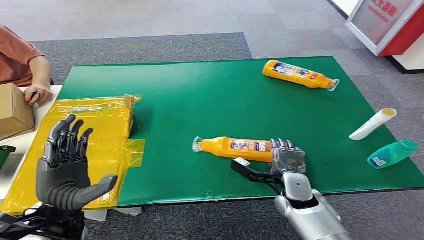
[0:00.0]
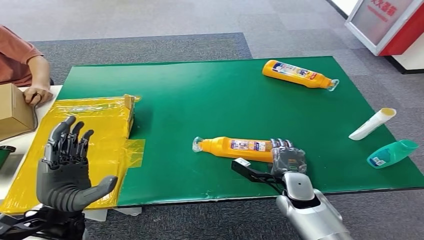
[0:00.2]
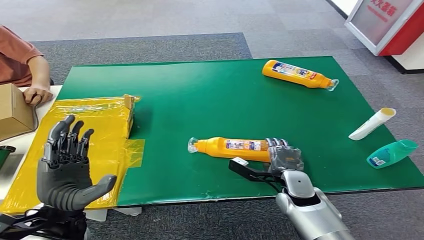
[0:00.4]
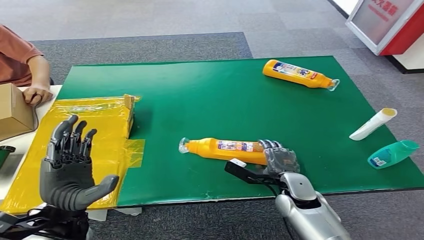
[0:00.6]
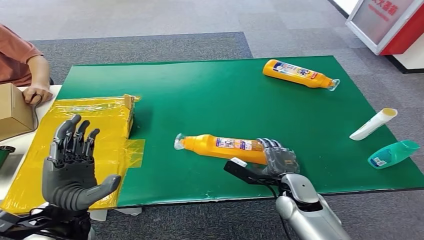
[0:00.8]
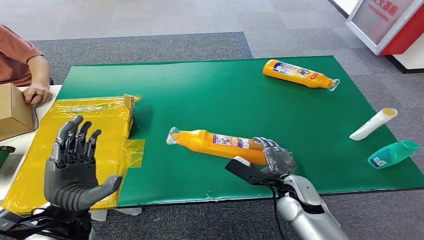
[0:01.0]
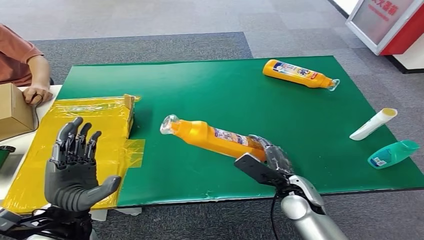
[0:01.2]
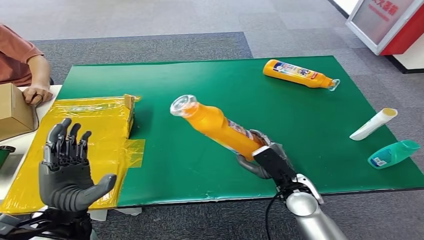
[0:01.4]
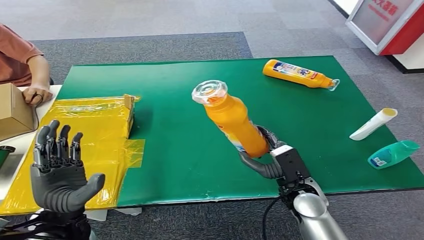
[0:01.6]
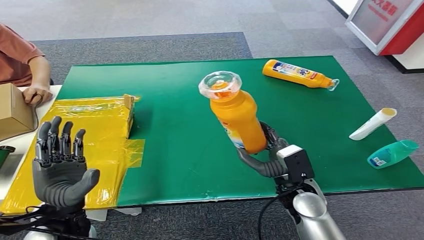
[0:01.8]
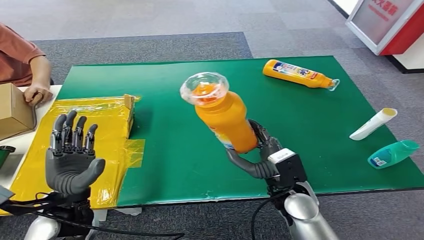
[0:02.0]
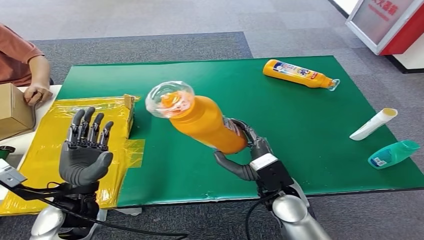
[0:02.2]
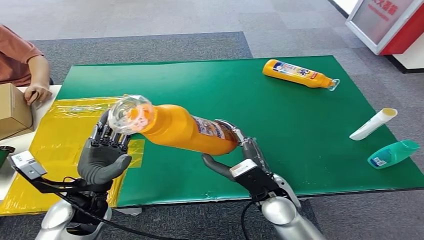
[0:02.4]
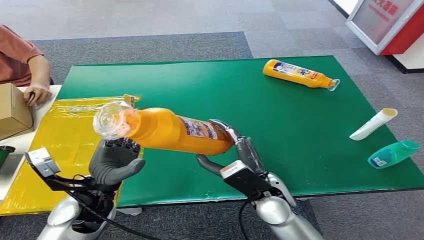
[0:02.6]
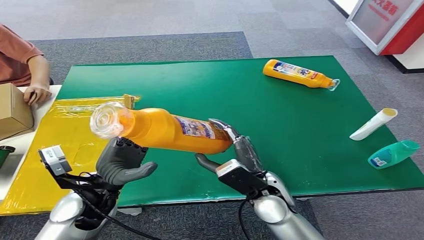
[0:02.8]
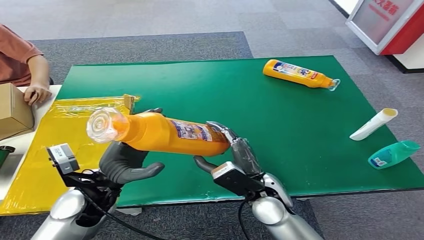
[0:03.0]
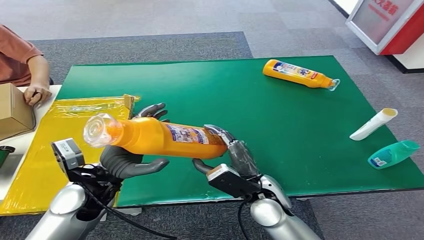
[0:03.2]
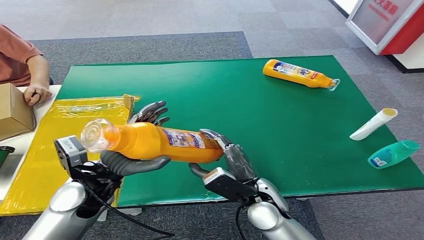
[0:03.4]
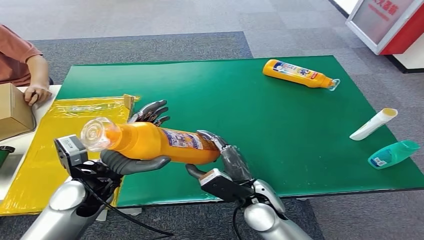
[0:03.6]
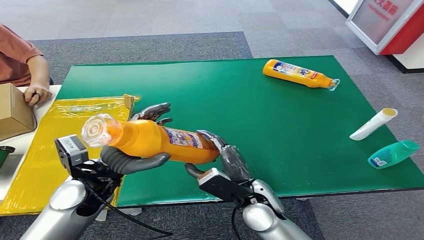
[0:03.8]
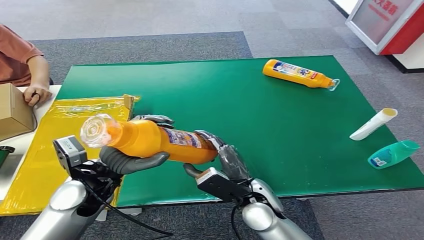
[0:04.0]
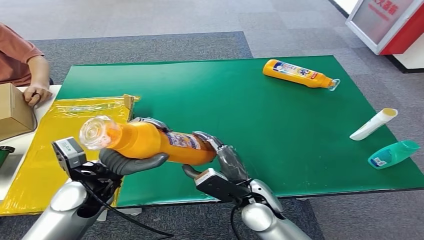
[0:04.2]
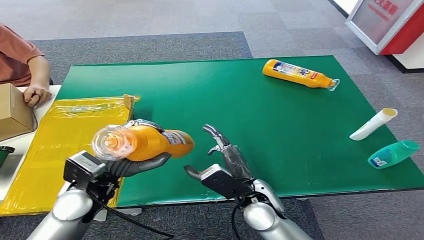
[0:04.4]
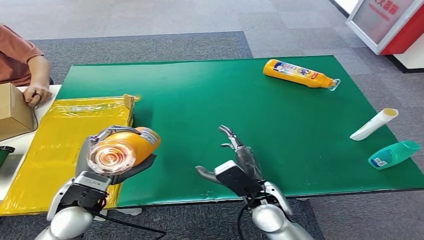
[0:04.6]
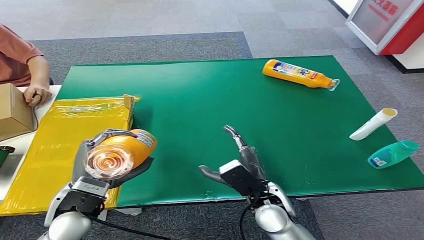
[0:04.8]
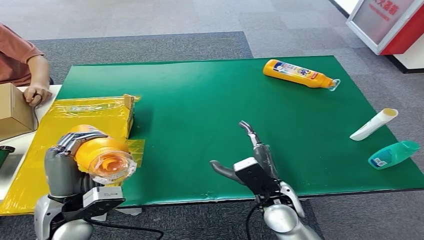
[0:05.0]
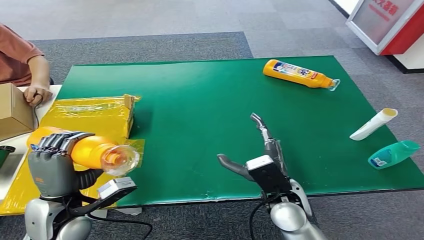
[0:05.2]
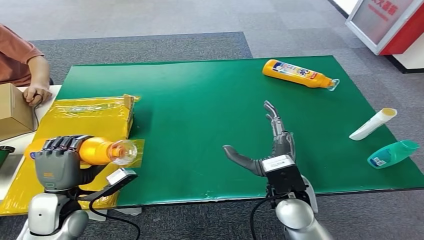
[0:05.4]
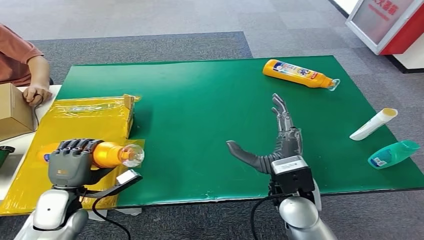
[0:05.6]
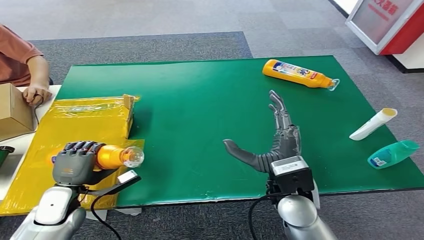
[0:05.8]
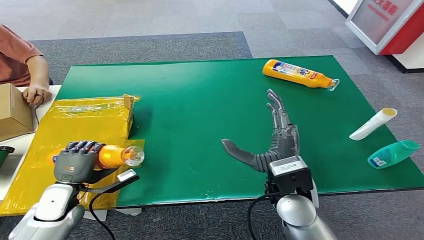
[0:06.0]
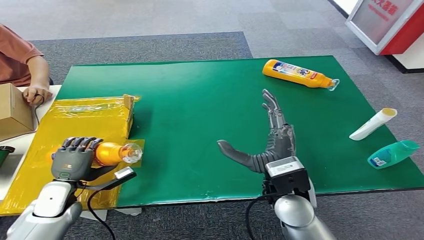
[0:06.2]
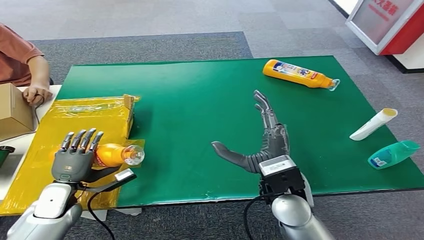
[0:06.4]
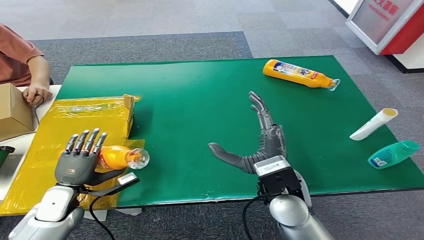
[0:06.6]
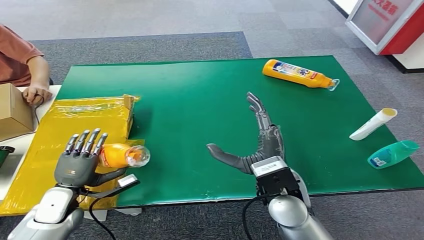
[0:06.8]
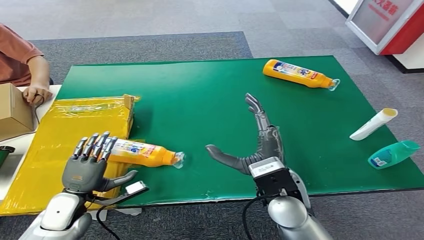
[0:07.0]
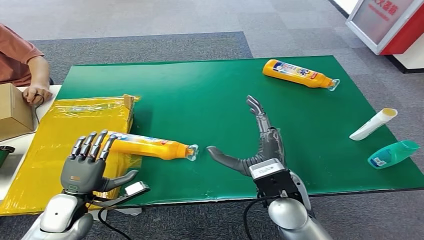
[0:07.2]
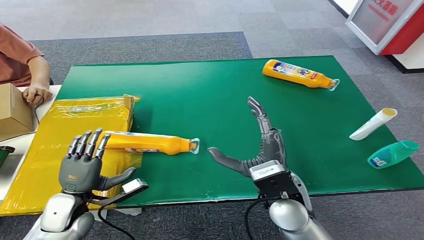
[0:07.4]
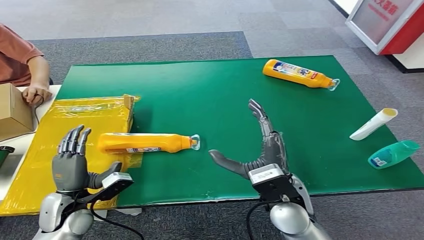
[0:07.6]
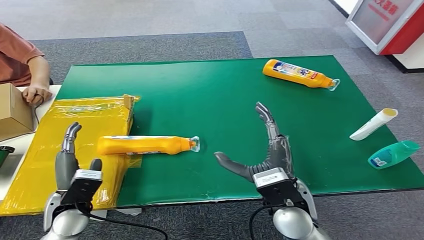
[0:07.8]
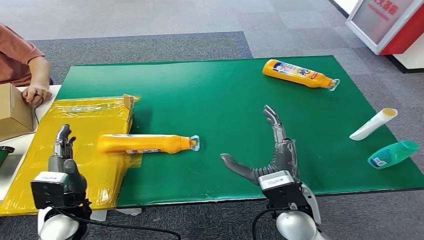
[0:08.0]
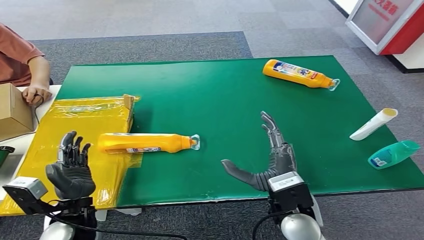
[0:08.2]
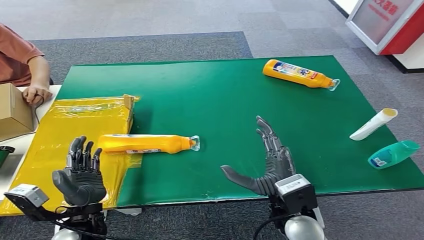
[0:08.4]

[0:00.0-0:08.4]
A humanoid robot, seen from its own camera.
Step, 0:02.0 to 0:08.4: Turn the bottle to the front side.
0:02.8 to 0:04.2: There are only small adjustments of the hands.
0:04.2 to 0:05.6: The left hand shifts some 15 cm to the left and downward; the right hand is displaced upward and to the right by some 10 cm.
0:05.6 to 0:07.0: There are only small adjustments of the hands.
0:07.0 to 0:08.4: The left hand travels to the right, backward and upward by roughly 10 cm. Meanwhile the right hand changes place by approximately 5 cm.

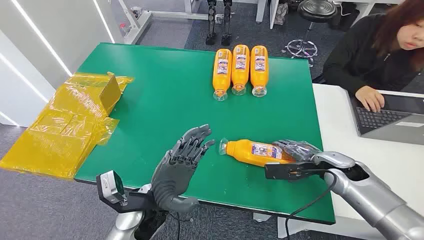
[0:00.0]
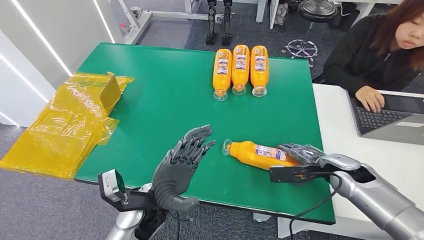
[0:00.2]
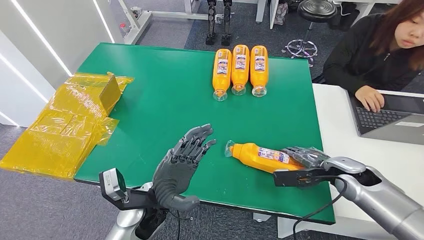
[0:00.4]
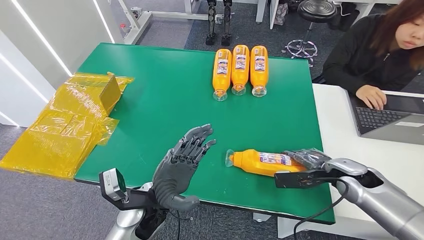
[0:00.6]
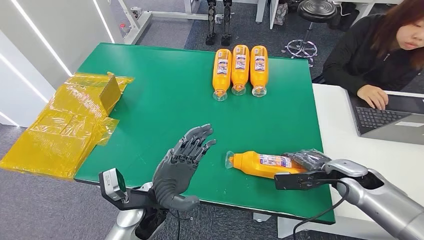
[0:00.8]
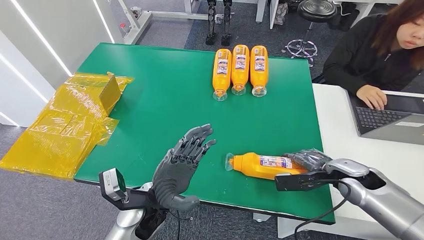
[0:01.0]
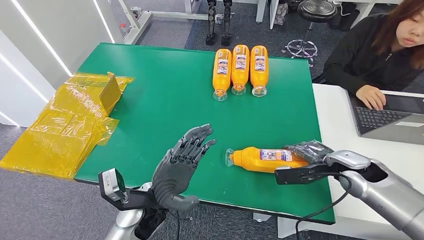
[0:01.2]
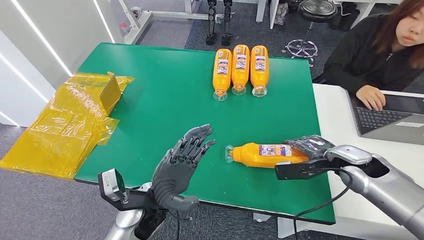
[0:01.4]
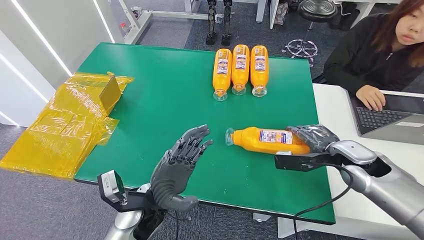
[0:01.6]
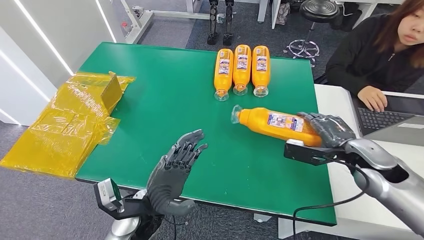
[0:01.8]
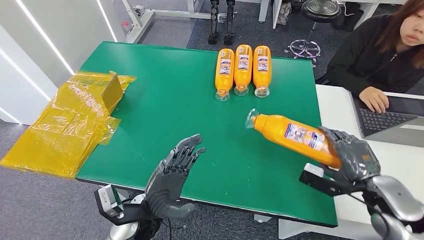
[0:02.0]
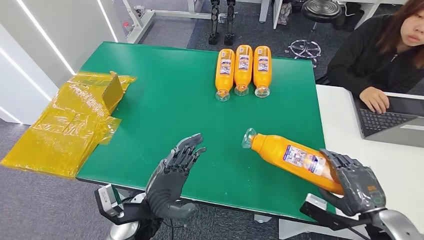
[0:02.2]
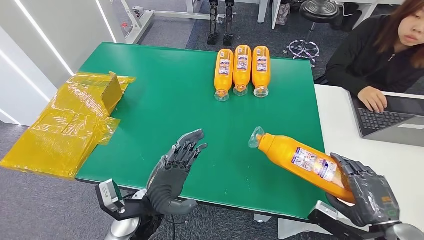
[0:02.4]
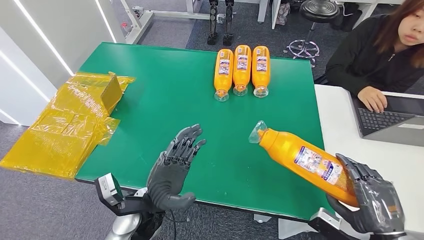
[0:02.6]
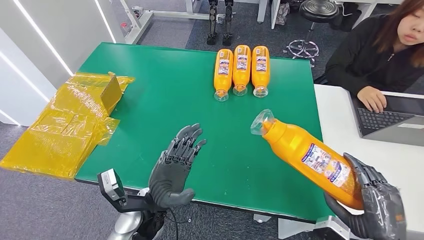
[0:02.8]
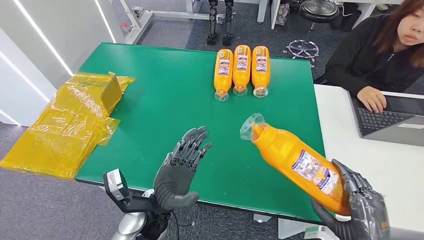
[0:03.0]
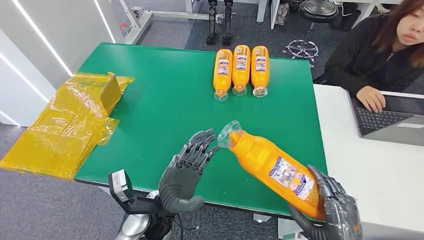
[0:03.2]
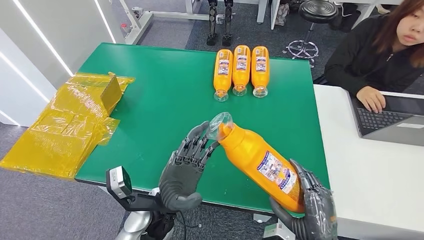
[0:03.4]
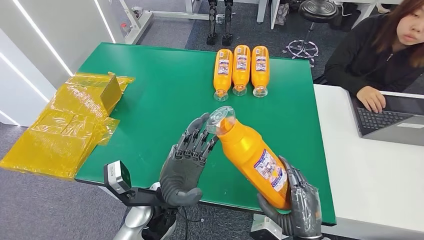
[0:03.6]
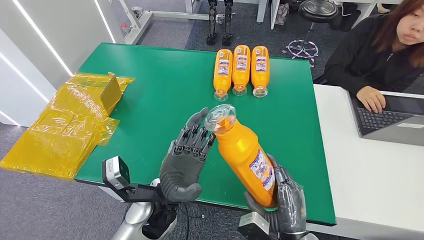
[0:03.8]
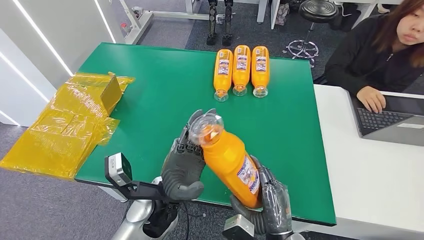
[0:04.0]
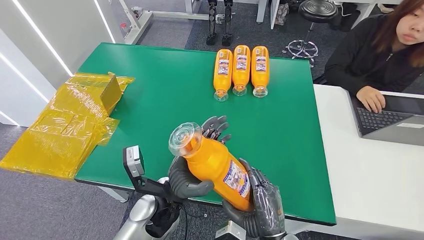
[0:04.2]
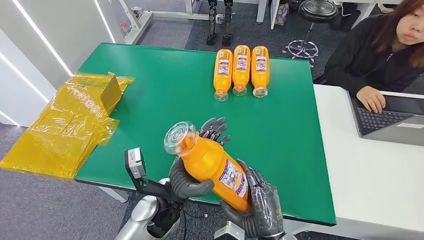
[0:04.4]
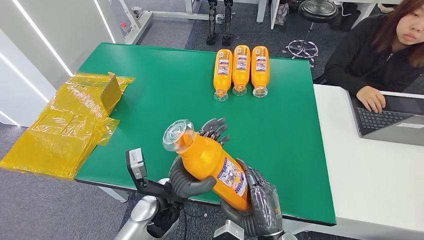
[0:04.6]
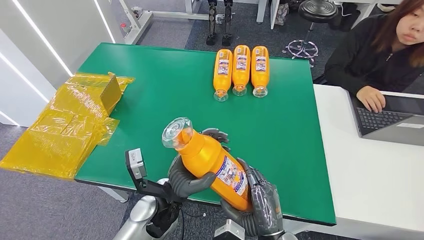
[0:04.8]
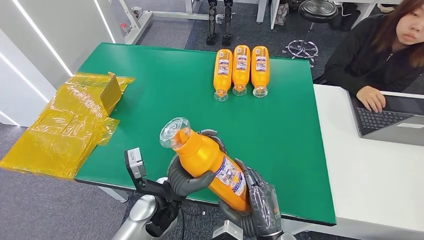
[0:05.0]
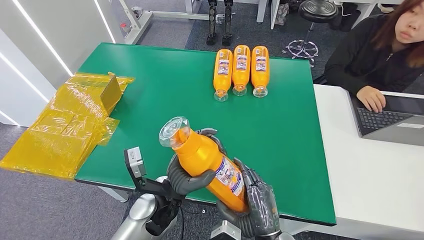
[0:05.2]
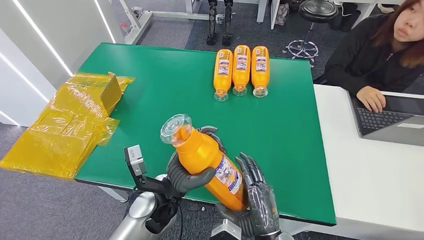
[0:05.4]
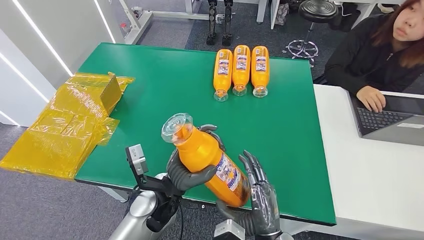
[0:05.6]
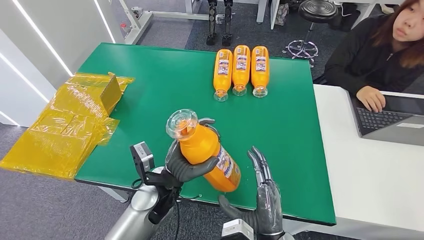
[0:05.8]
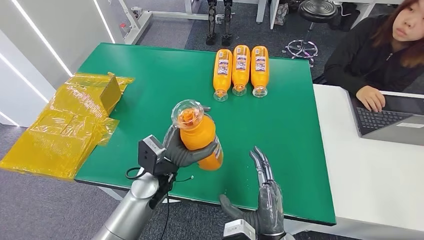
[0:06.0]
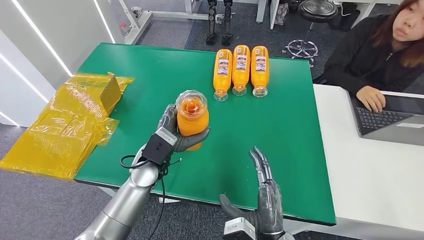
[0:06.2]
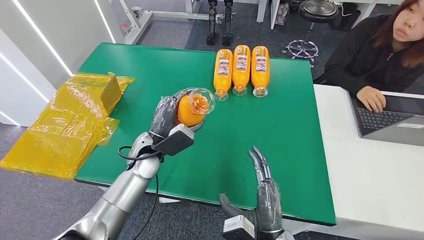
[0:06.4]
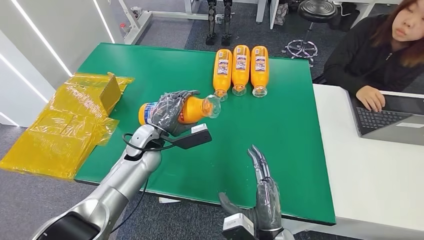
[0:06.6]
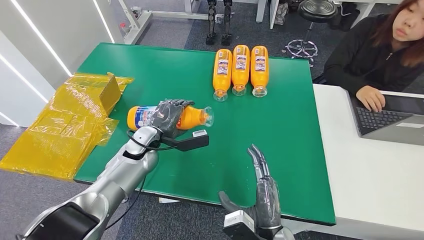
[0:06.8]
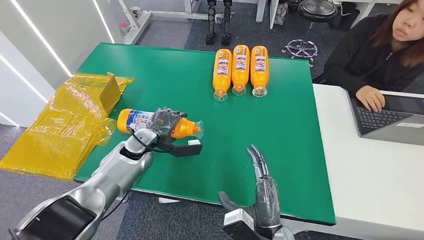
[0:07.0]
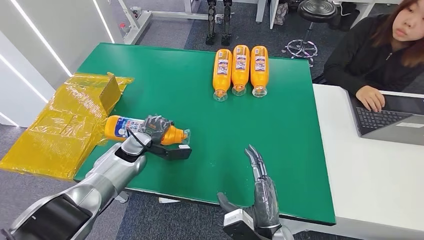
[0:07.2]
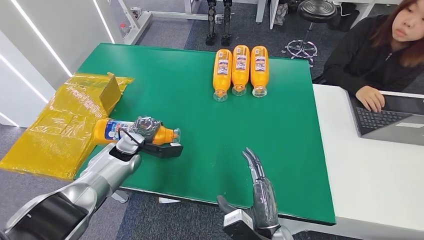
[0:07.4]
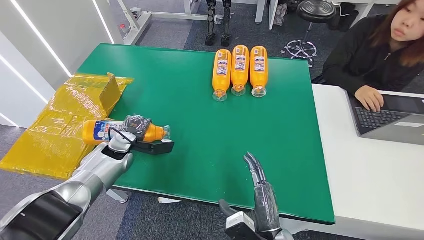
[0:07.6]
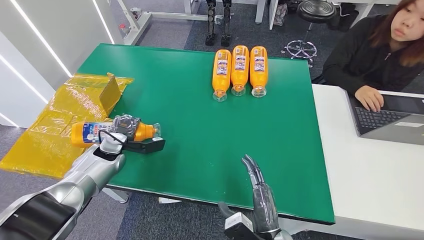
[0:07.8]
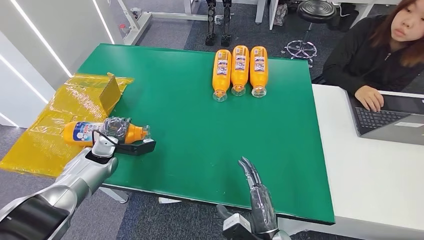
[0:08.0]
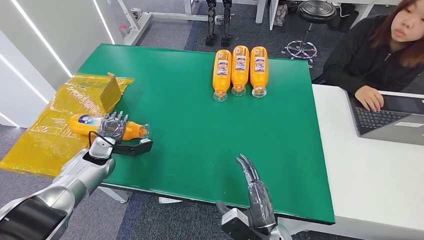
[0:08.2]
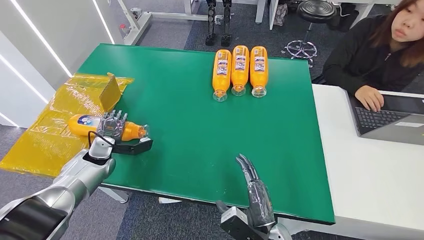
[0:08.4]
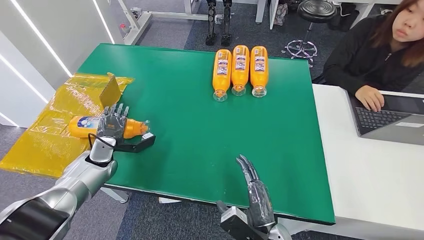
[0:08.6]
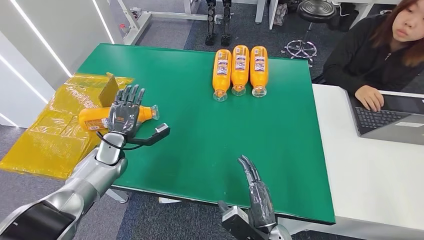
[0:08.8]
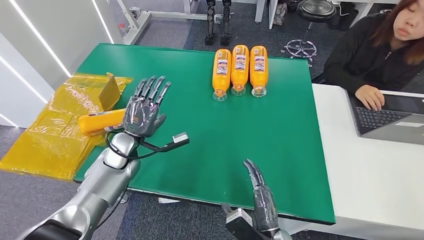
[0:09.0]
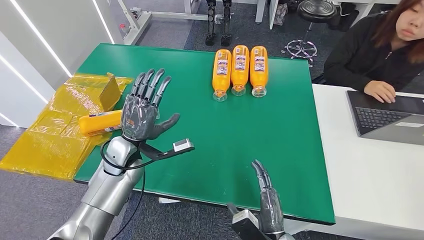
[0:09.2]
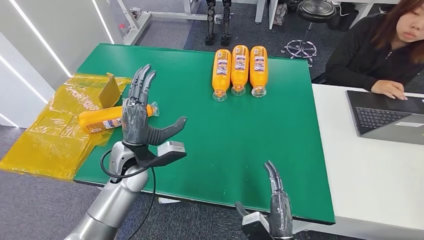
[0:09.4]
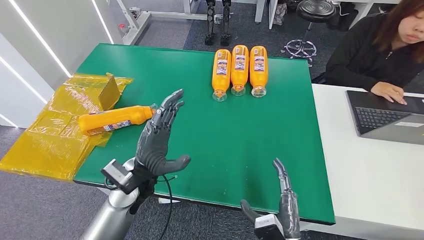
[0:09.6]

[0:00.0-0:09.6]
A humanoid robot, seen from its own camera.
Step, 0:00.0 to 0:02.8: Pick up the bottle from the table.
Step, 0:03.0 to 0:09.6: Turn the bottle to the front side.
0:01.6 to 0:03.2: The right hand moves backward, some 25 cm.
0:03.2 to 0:04.8: The right hand heads to the left, covering some 15 cm.
0:04.8 to 0:06.4: The left hand shifts about 15 cm forward and to the left.
0:06.4 to 0:08.0: The left hand is displaced to the left by about 20 cm.
0:08.0 to 0:09.6: The left hand travels to the right and backward by approximately 20 cm.
